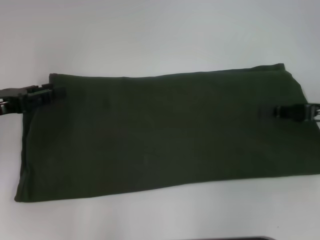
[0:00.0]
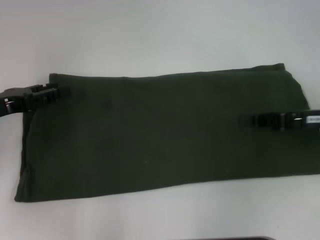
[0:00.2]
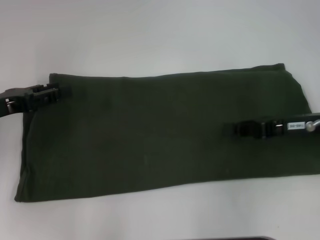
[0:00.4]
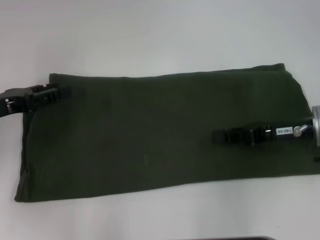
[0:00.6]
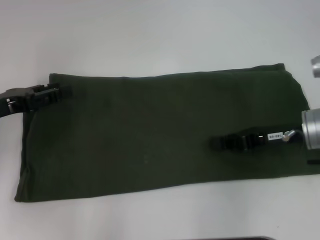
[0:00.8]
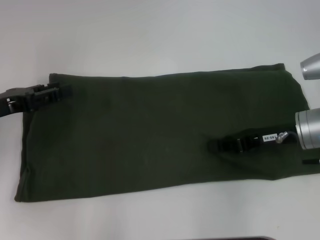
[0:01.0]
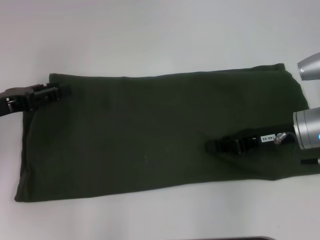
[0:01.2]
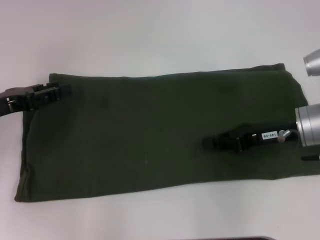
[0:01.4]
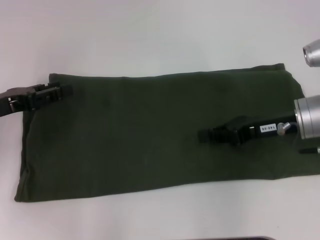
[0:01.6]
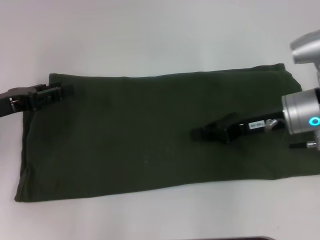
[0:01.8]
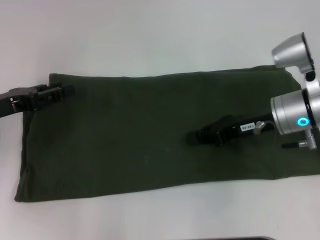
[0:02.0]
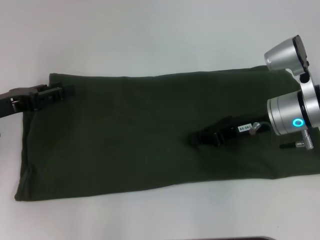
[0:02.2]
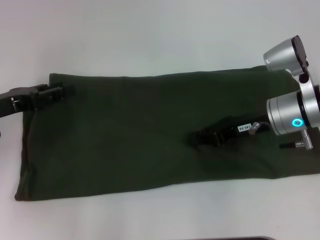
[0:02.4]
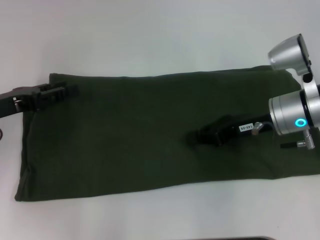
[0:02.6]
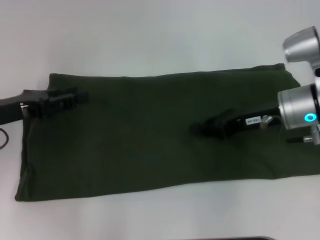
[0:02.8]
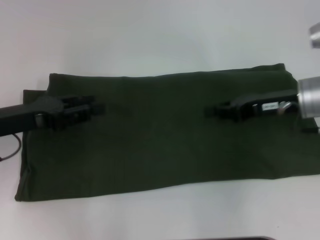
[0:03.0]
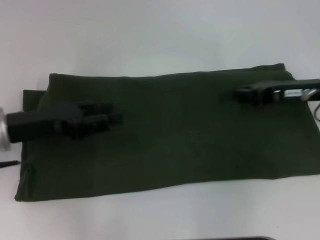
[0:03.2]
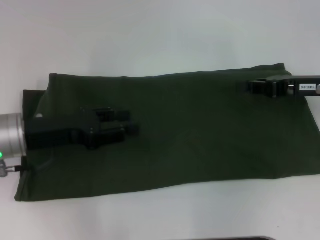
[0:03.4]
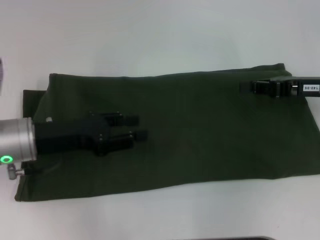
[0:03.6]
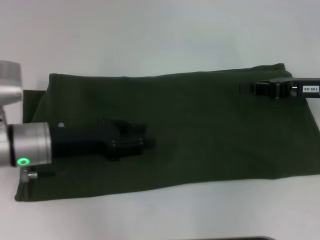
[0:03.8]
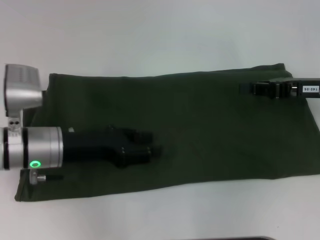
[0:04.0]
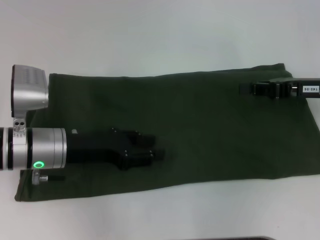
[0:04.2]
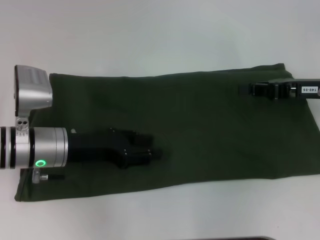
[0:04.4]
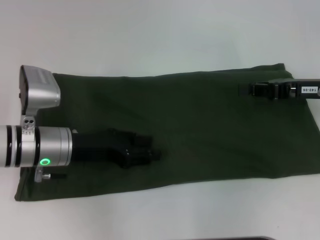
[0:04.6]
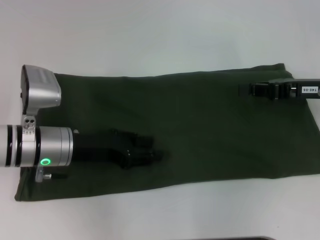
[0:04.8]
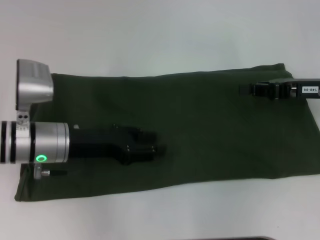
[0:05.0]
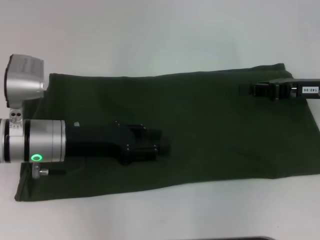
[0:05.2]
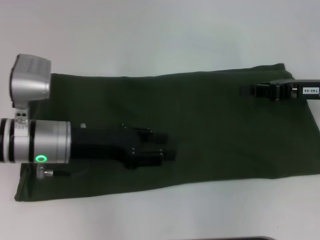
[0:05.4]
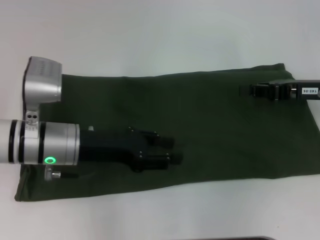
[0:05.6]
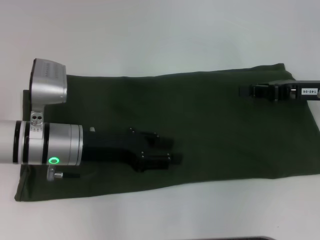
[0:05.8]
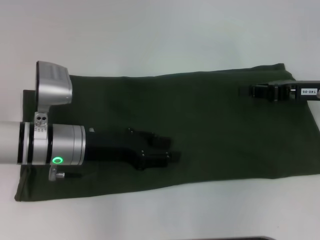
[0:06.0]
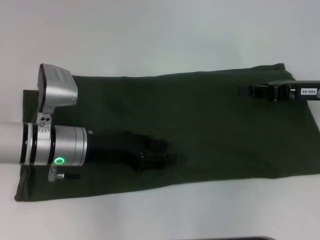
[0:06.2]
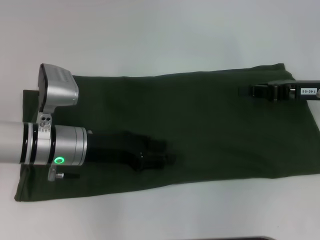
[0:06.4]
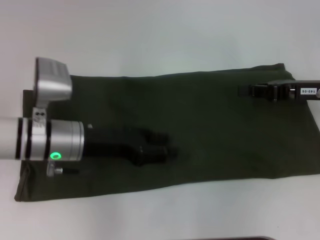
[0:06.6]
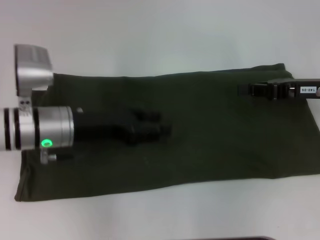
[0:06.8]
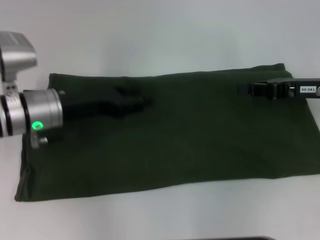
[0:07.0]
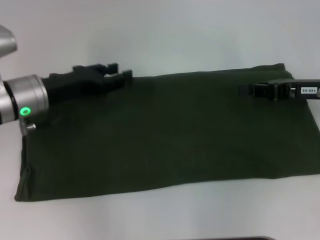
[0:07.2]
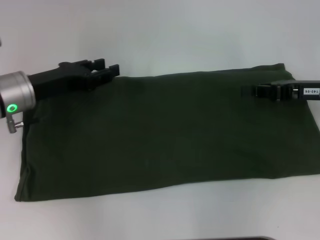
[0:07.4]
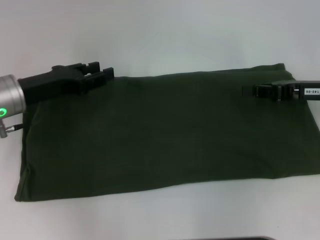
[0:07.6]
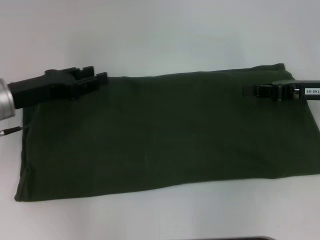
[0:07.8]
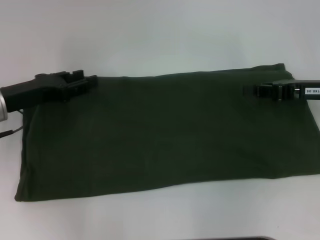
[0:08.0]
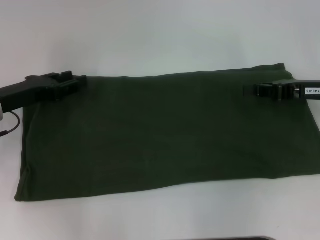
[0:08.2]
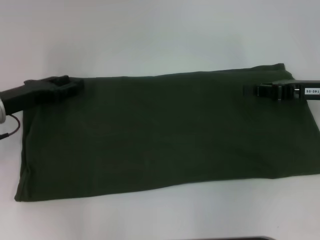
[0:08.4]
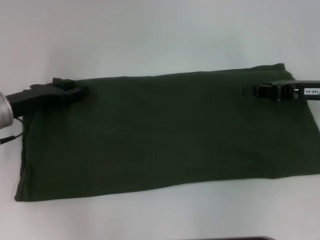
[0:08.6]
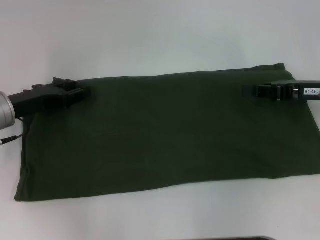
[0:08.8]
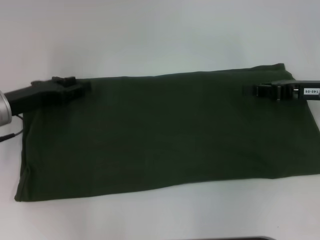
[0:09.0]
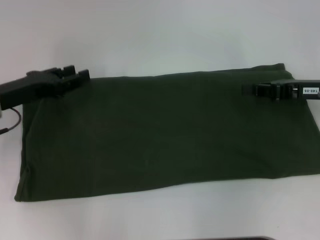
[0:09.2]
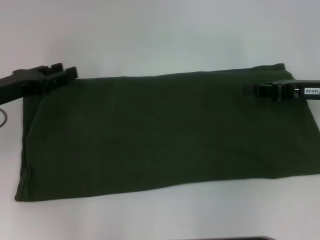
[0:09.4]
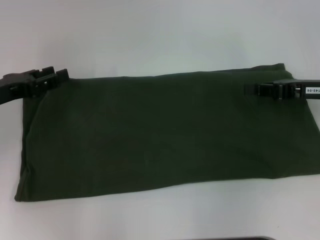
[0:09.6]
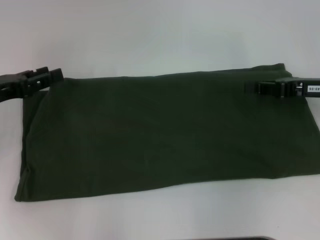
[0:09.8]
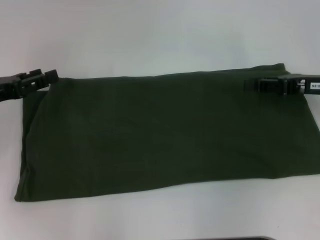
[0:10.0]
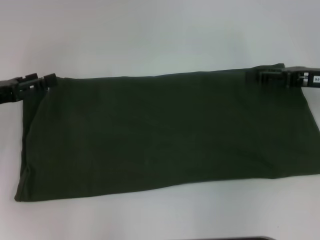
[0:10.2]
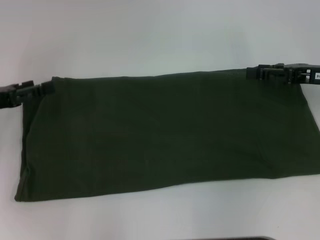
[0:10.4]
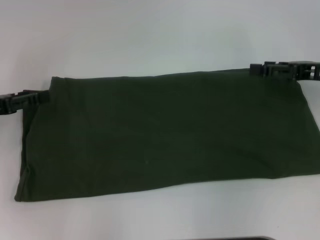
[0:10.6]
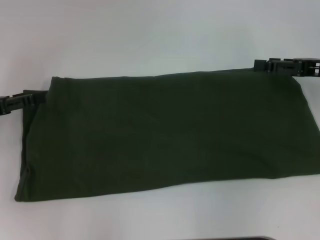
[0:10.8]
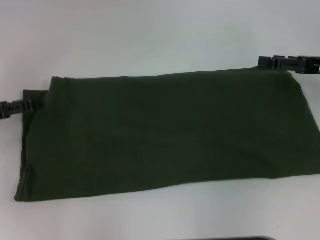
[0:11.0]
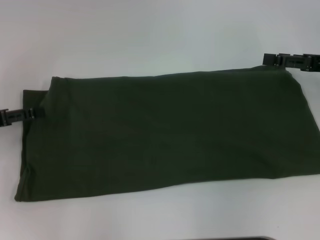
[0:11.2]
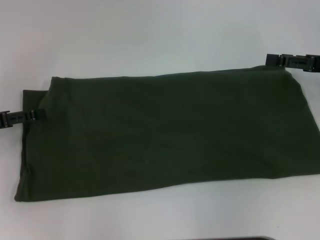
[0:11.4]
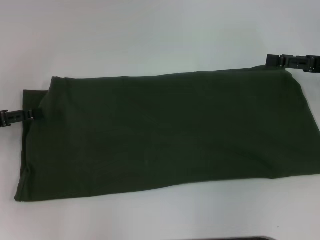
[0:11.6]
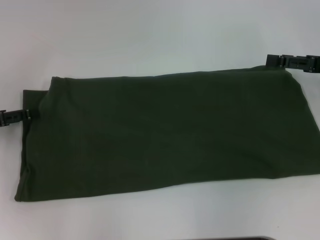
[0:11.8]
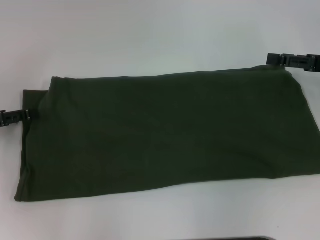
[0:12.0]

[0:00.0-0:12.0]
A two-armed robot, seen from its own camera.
0:00.0 to 0:01.6: The right gripper shifts approximately 10 cm to the left.
0:01.6 to 0:03.0: There are only small adjustments of the grippers.
0:03.0 to 0:04.4: The right gripper is displaced to the right by roughly 5 cm, while the left gripper is displaced to the right and downward by about 10 cm.
0:04.4 to 0:06.0: The grippers stay close to where they were, moving slightly.
0:06.0 to 0:07.6: The left gripper shifts some 10 cm to the left.
0:07.6 to 0:09.0: There are only small adjustments of the grippers.
0:09.0 to 0:10.4: The right gripper opens up. The left gripper shifts roughly 5 cm to the left.
0:10.4 to 0:12.0: The right gripper opens.

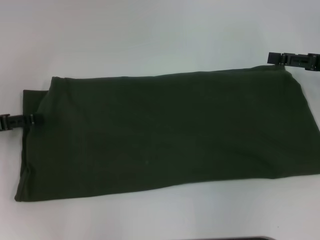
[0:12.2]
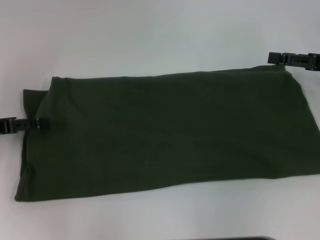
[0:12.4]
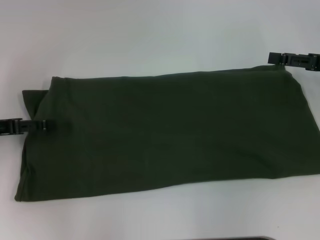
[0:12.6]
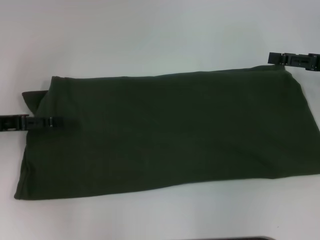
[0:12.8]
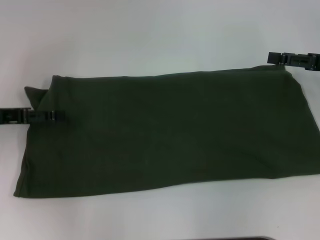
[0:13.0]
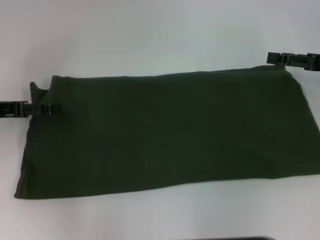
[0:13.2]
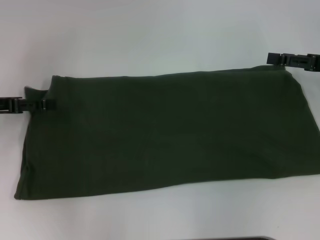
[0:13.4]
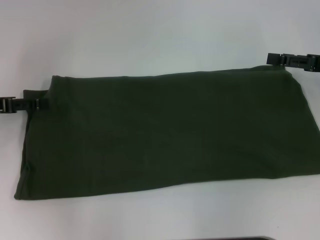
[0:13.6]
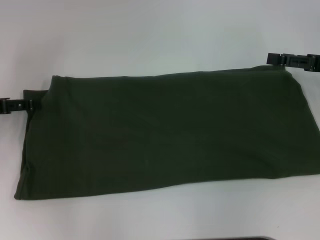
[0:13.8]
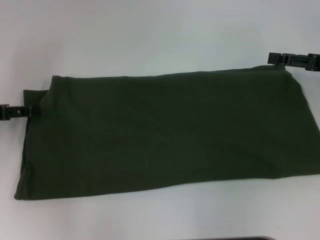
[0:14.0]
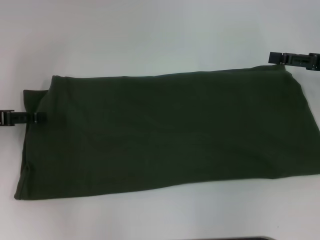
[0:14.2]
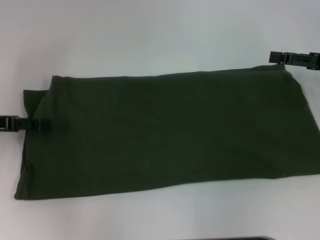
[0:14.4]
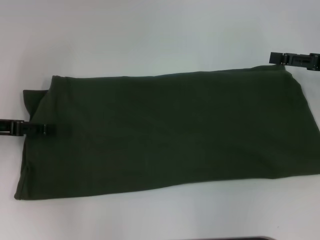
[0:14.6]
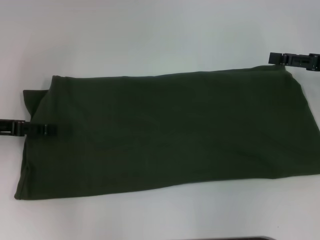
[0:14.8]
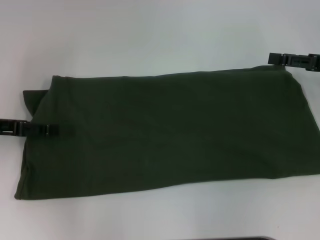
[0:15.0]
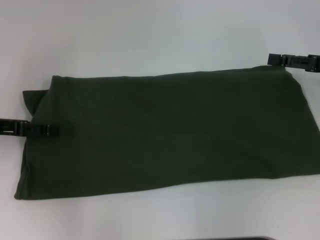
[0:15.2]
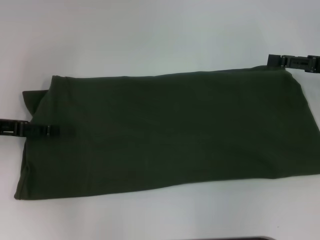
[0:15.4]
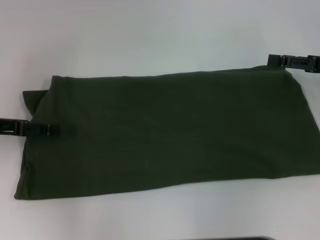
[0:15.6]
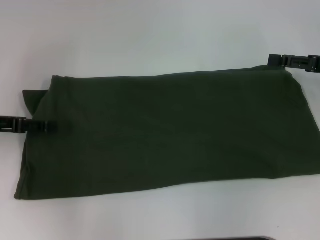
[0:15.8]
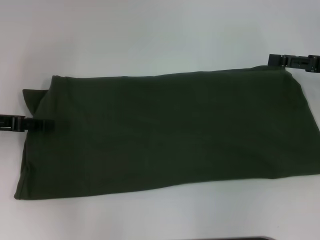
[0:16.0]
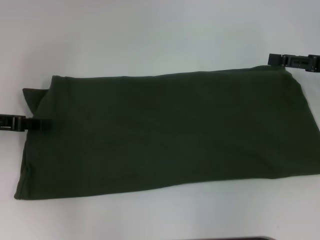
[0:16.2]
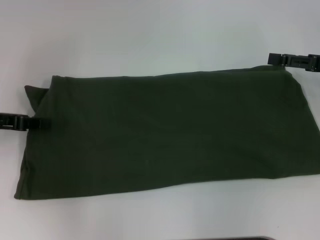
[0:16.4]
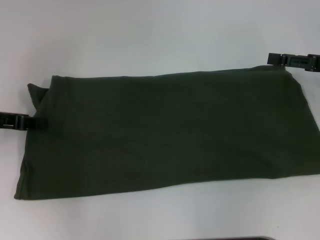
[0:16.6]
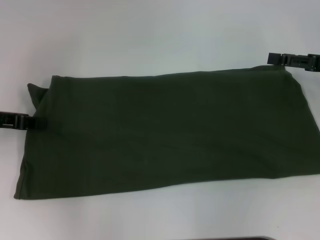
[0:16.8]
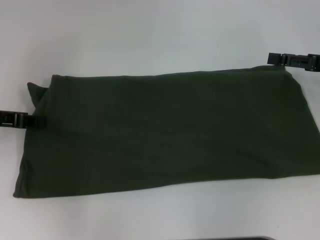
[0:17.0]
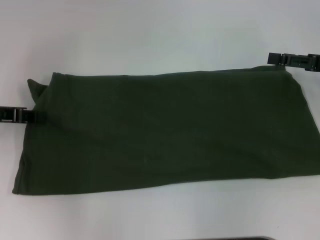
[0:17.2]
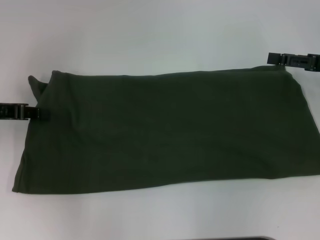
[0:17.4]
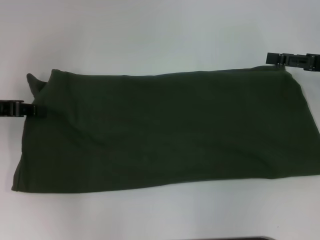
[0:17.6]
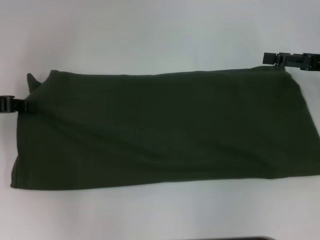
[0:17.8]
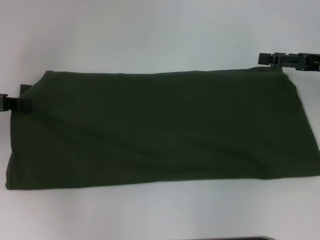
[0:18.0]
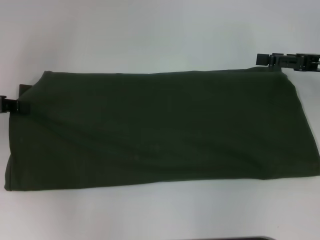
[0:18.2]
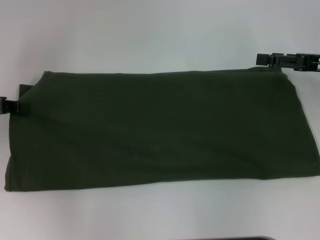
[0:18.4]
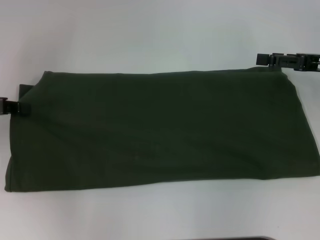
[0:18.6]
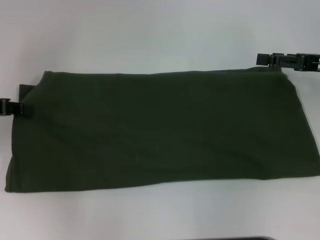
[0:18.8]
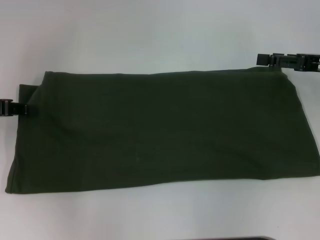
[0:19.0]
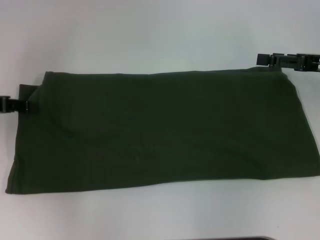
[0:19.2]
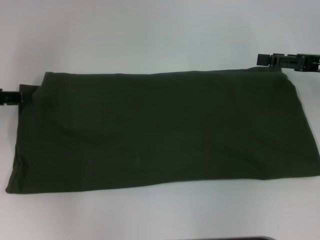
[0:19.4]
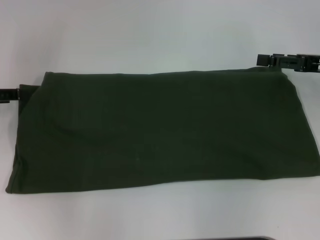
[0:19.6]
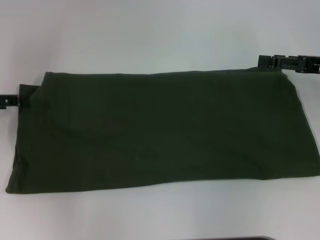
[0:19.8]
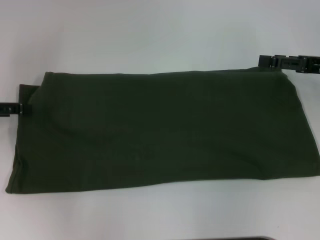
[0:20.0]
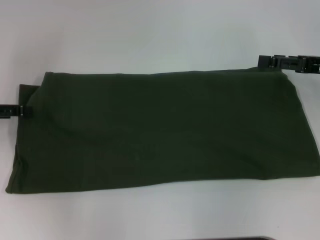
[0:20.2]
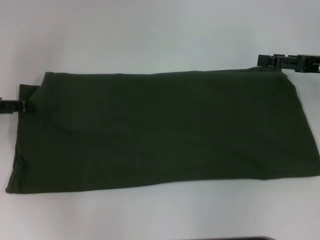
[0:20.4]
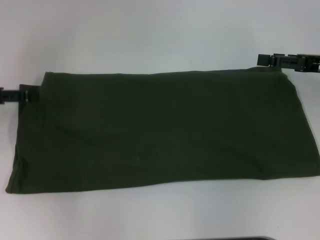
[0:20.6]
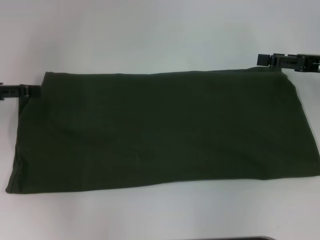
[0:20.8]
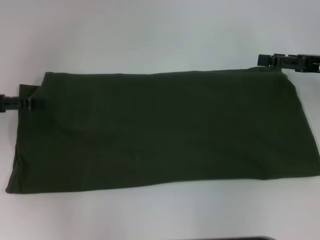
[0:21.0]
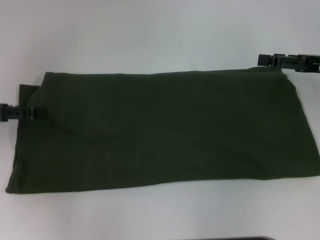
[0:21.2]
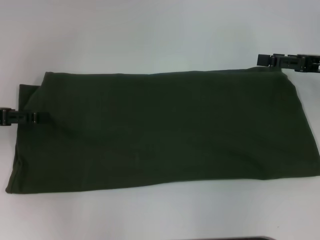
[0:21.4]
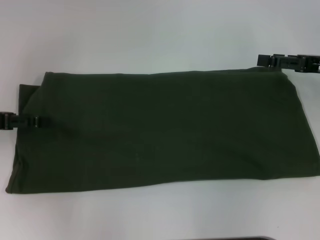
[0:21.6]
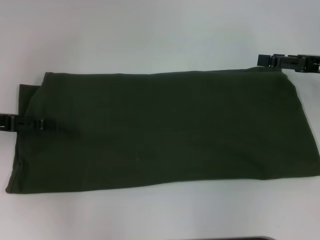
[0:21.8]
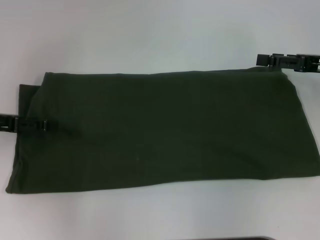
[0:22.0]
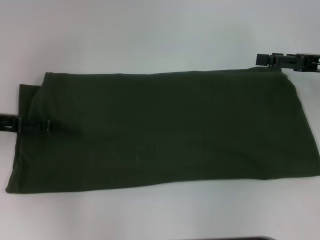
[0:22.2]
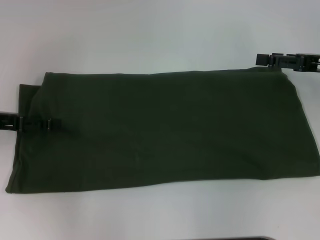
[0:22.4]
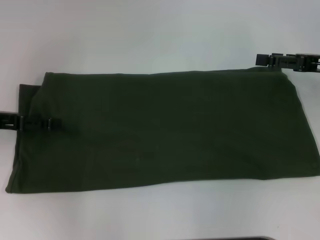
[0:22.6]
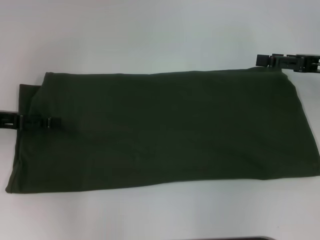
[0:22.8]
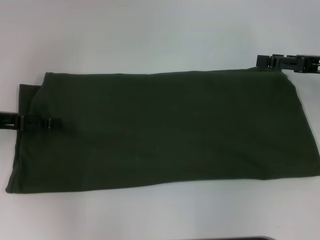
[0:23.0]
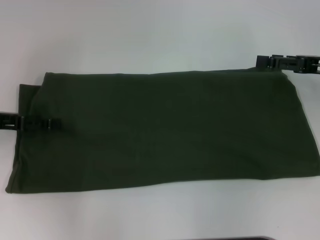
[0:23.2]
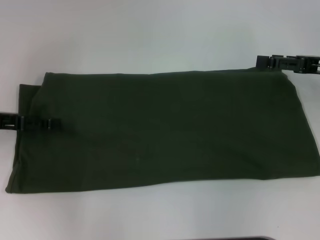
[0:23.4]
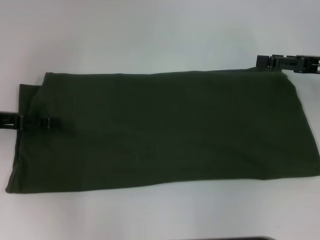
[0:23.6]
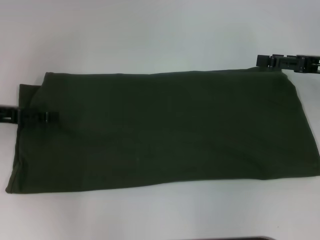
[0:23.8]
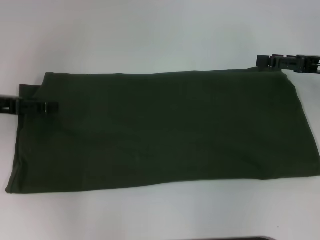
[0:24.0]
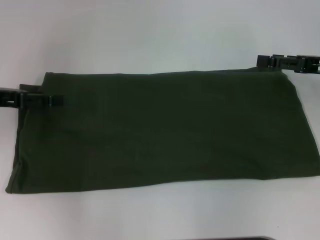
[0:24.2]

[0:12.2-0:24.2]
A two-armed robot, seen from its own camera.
0:12.2 to 0:15.2: There are only small adjustments of the grippers.
0:15.2 to 0:16.6: The left gripper closes.
0:16.6 to 0:18.2: The grippers make only small movements.
0:18.2 to 0:19.8: The left gripper opens up.
0:22.6 to 0:24.2: The grippers move only a little.
